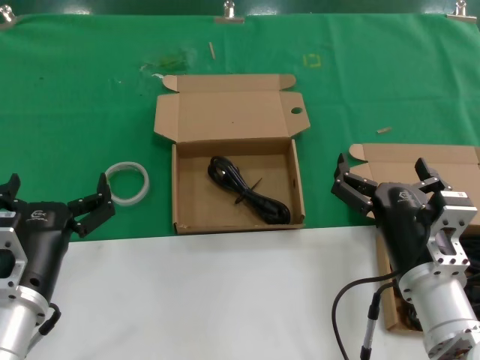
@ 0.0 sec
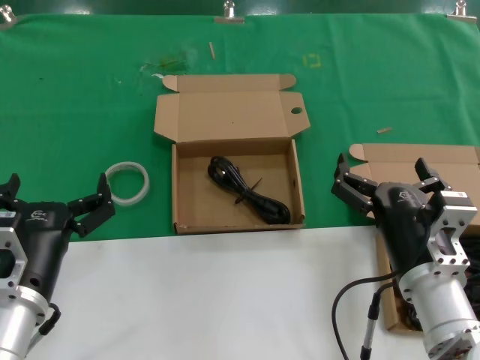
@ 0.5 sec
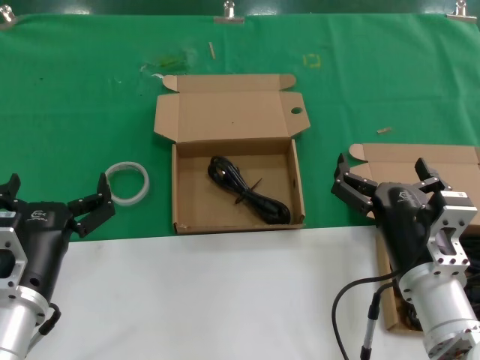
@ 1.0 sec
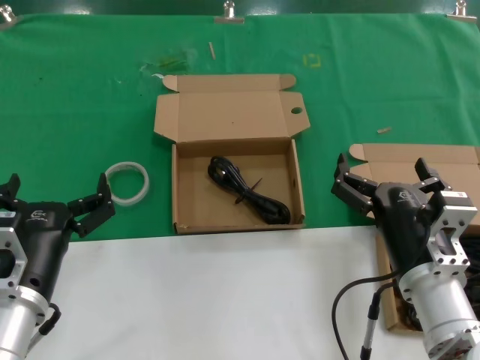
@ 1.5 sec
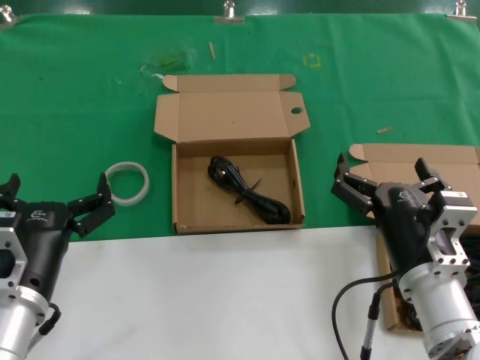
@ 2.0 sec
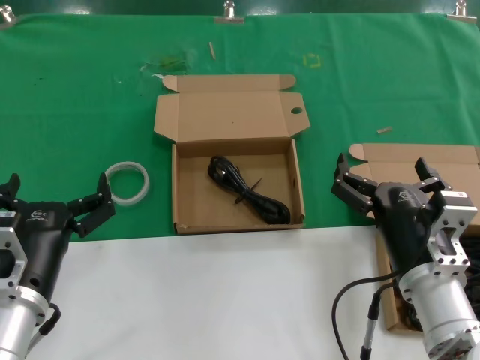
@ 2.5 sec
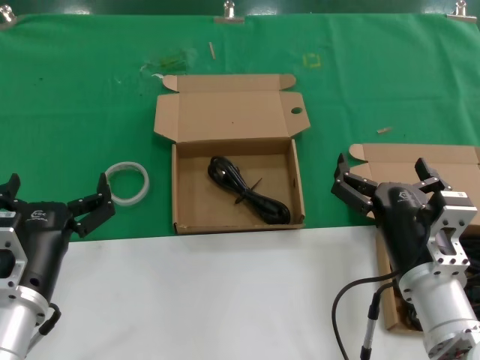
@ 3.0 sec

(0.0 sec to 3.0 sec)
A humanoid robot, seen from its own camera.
Task of the whole recording: take the parts from the box containing them and put them into an empty box.
0.0 sec - 3.0 sec: Both hands stay put.
